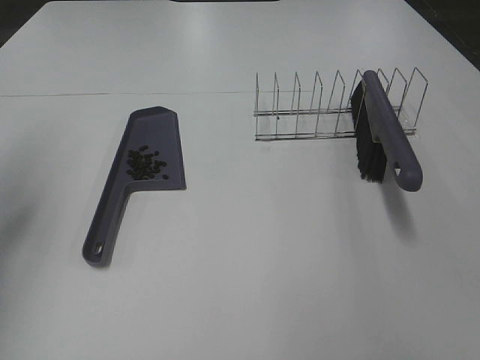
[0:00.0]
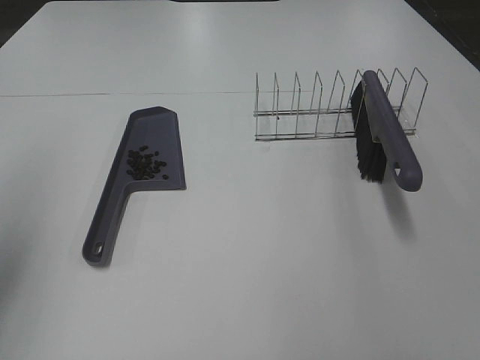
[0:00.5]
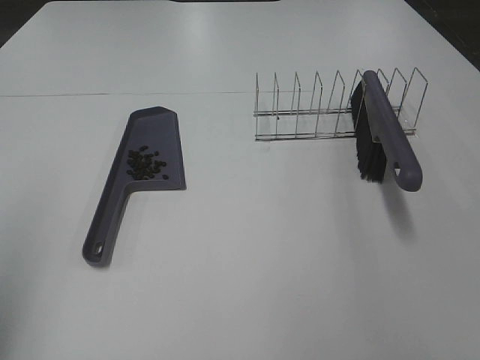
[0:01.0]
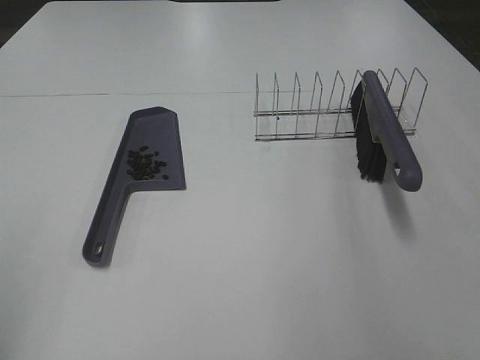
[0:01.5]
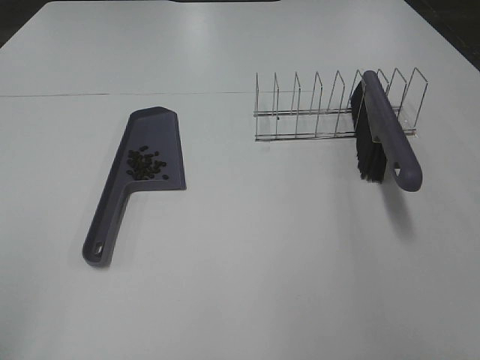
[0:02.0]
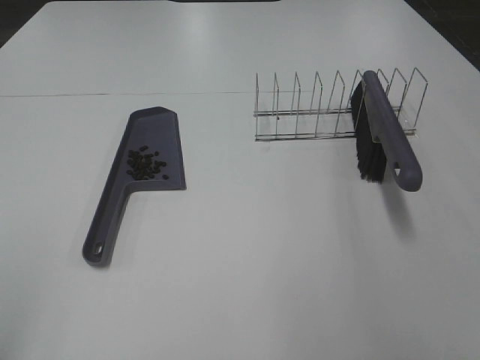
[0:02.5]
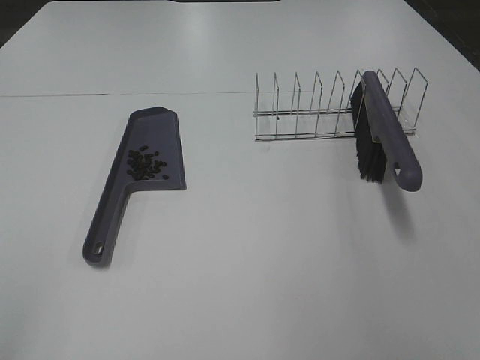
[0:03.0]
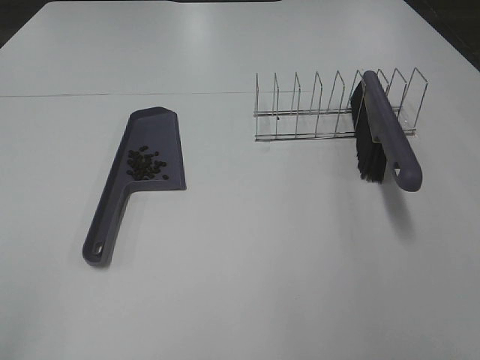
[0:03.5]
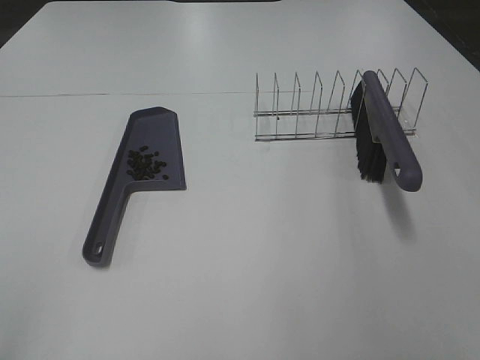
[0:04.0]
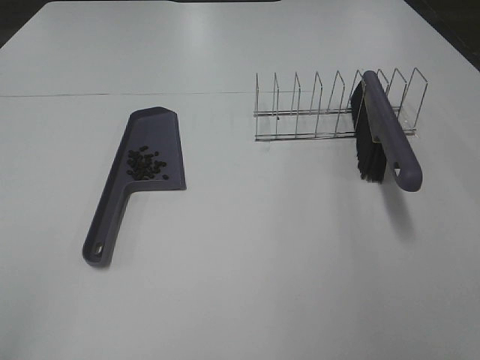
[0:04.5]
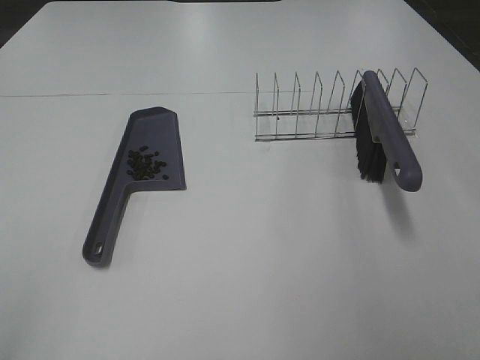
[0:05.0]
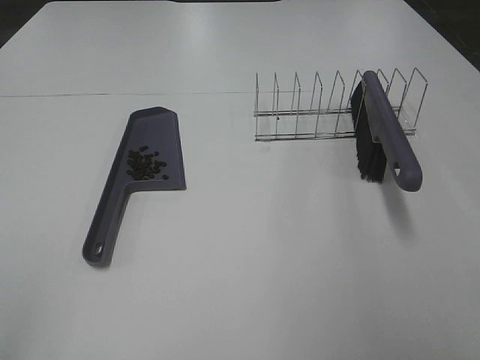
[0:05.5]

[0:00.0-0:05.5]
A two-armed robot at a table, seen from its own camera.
Task of the whole recording: Sweep Coffee Bean.
0:00.0 to 0:02.0: The left gripper goes approximately 30 cm backward.
0:03.5 to 0:05.5: Both grippers stay about where they are.

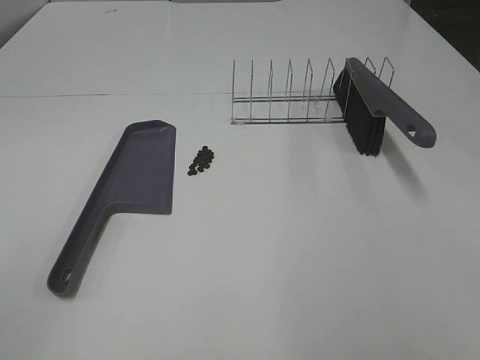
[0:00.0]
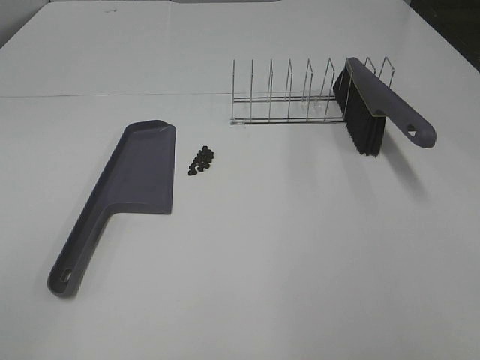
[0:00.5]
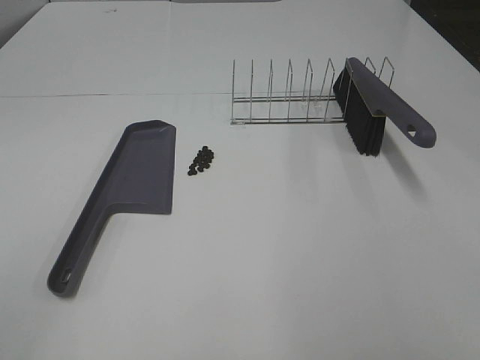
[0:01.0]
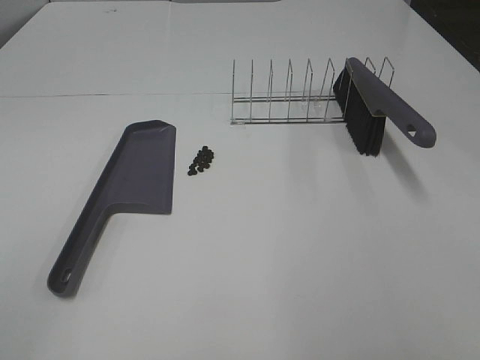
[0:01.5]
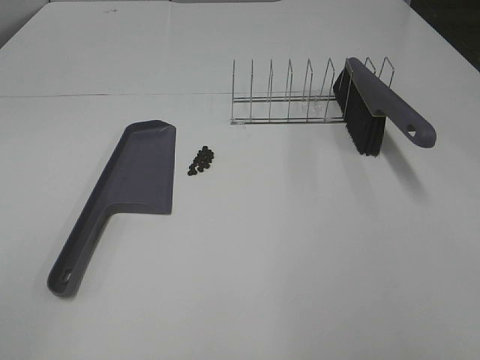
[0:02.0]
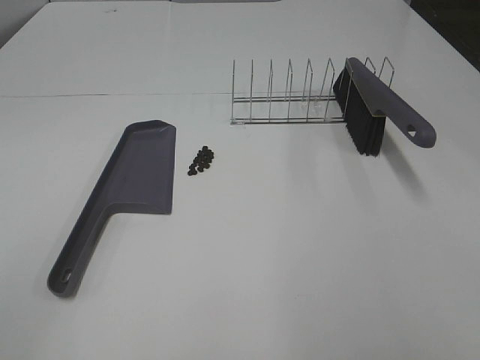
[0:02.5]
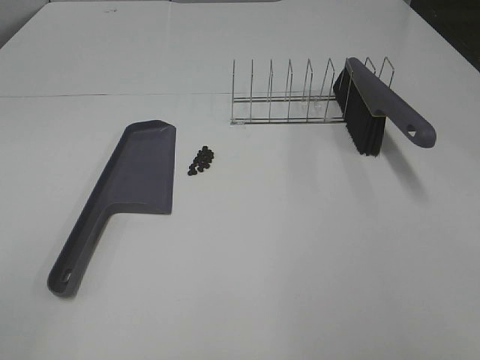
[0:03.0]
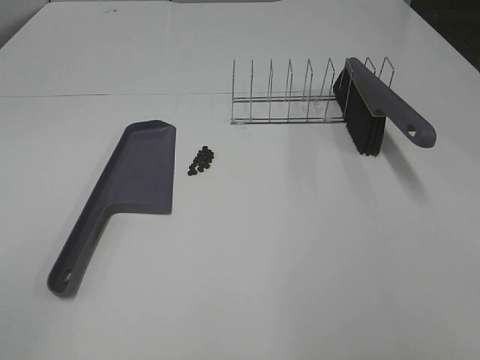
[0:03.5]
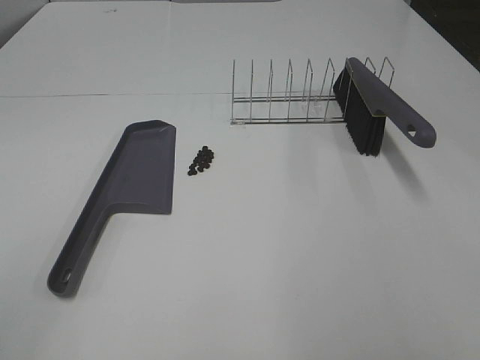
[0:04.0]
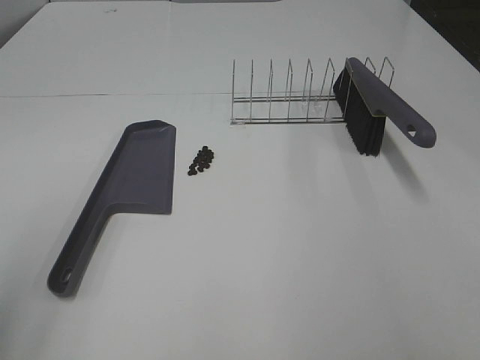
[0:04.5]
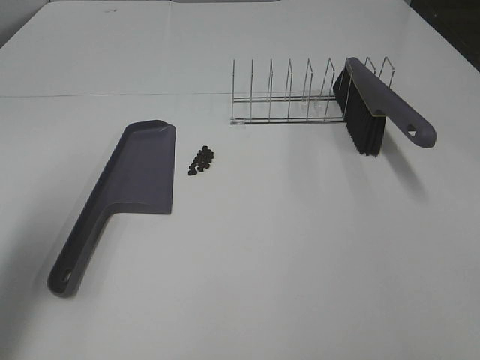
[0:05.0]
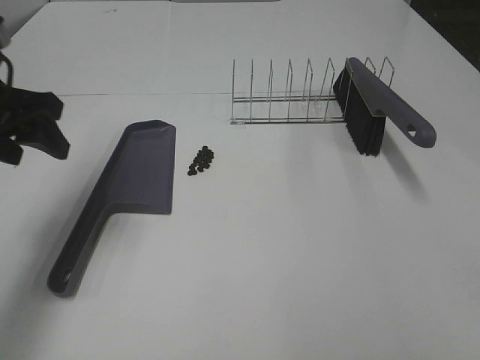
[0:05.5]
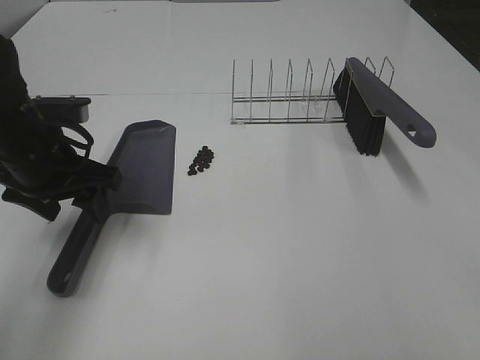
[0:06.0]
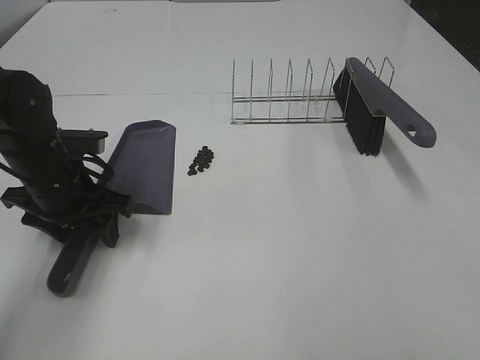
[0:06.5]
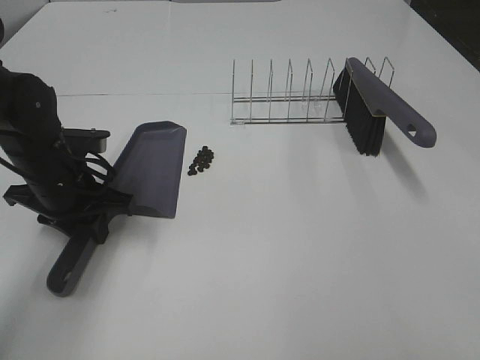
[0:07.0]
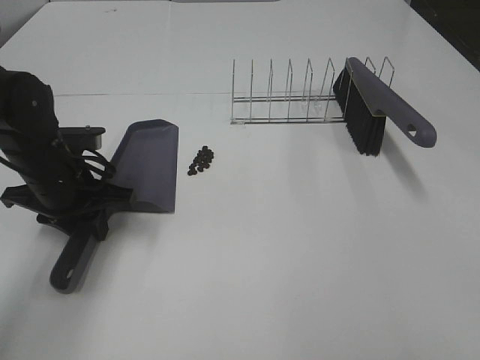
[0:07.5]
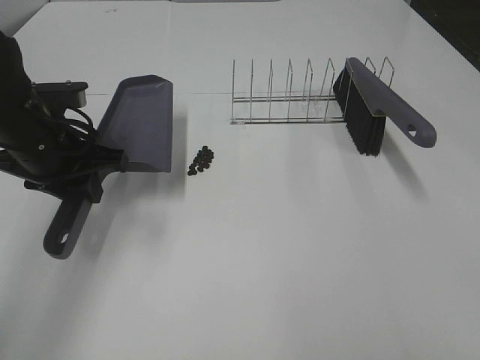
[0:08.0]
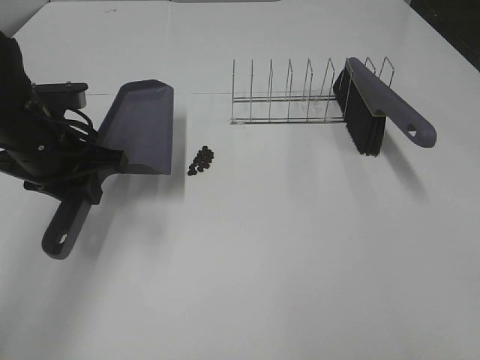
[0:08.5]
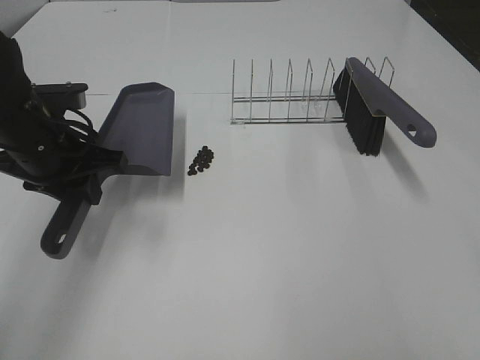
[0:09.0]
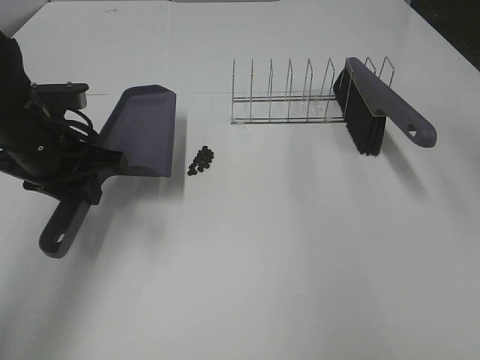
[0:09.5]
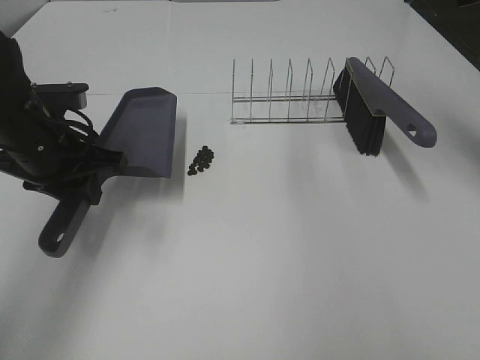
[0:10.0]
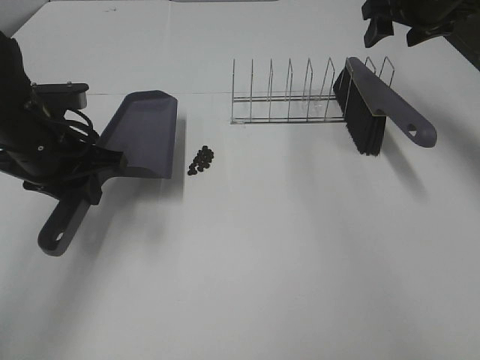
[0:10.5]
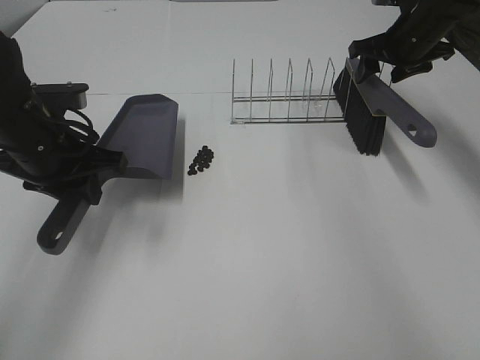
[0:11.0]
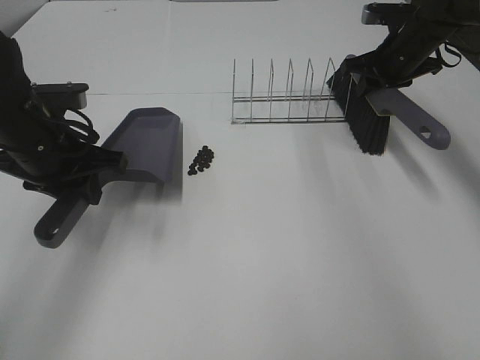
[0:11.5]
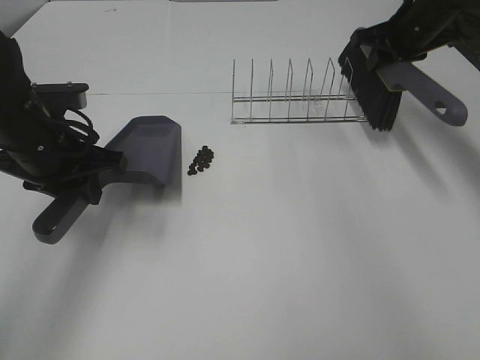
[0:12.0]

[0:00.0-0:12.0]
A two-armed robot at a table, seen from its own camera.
Task of the whole recording: Sweep Coffee Bean.
Step, 0:00.0 to 0:07.0: Left hand: grab the dustpan.
Step, 0:08.5 to 0:11.5: Right hand:grab the broom.
0:00.0 to 0:04.0: The two grippers keep their place.
0:04.0 to 0:06.0: The left gripper travels forward and downward by about 35 cm, and opens up.
0:06.0 to 0:08.0: The left gripper closes up.
0:08.0 to 0:10.0: The right gripper goes about 40 cm forward.
0:10.0 to 0:12.0: The right gripper is displaced forward and downward by about 15 cm, and closes up.

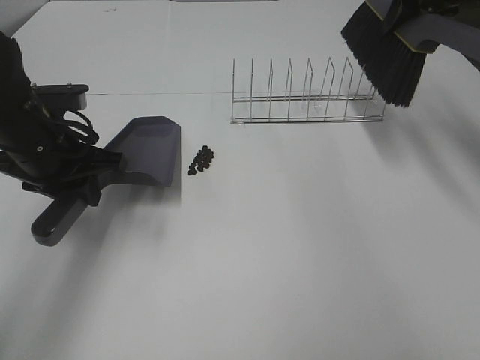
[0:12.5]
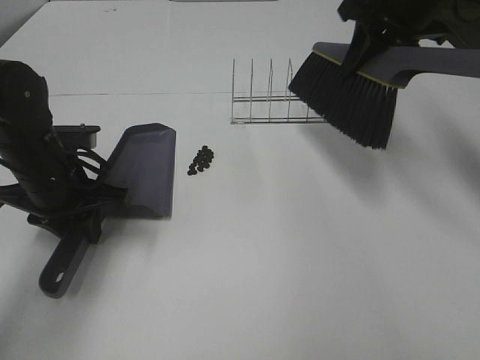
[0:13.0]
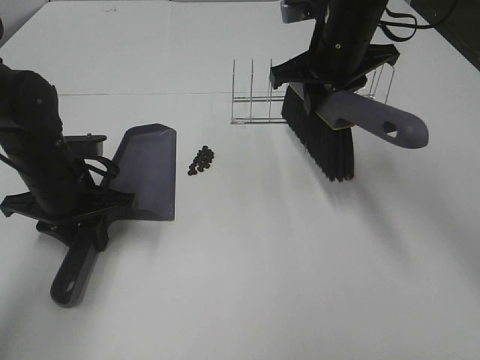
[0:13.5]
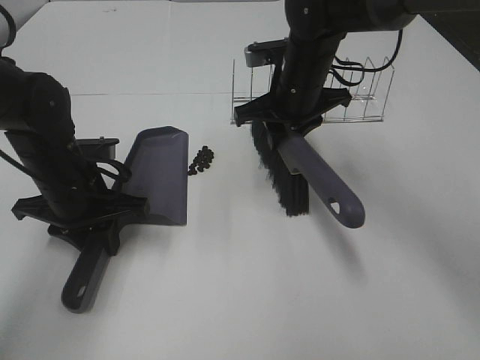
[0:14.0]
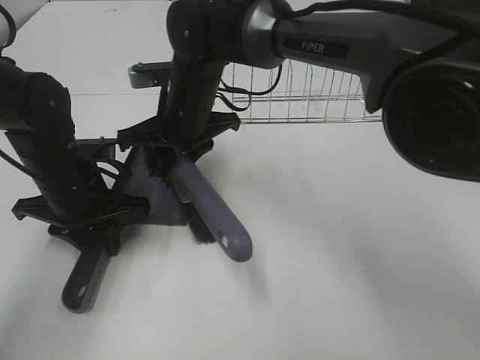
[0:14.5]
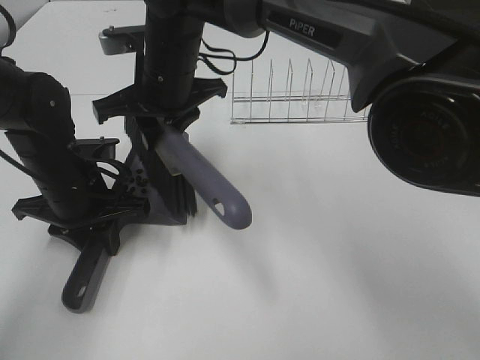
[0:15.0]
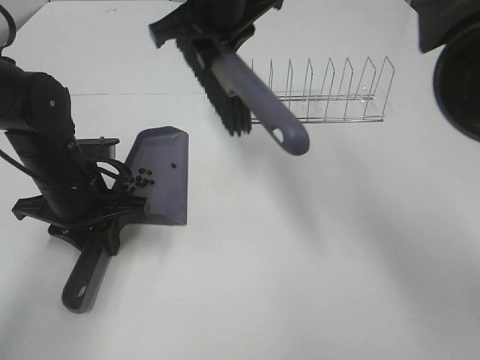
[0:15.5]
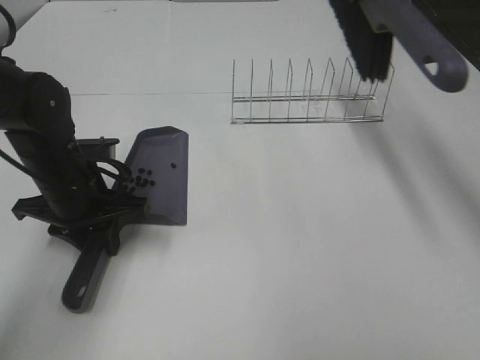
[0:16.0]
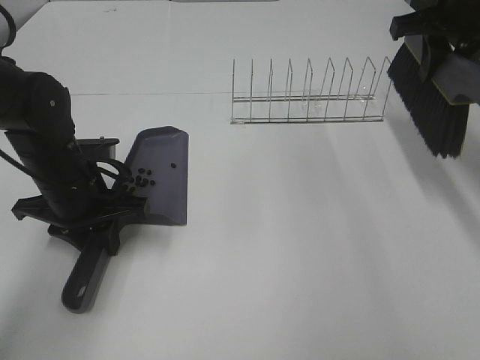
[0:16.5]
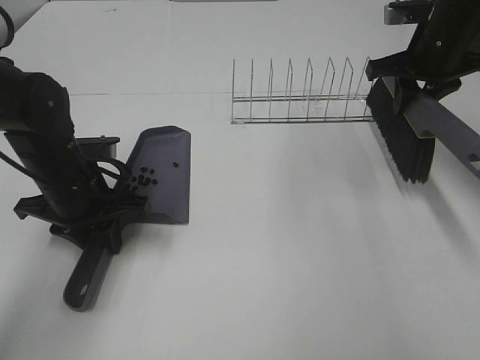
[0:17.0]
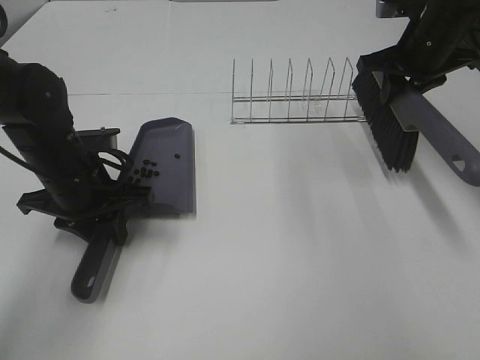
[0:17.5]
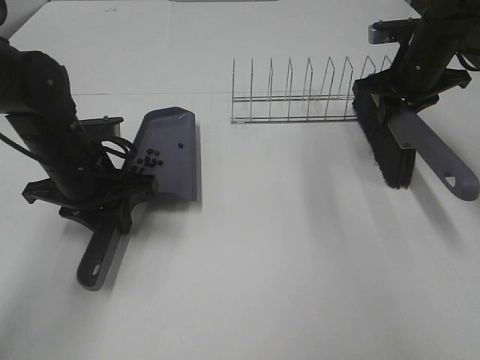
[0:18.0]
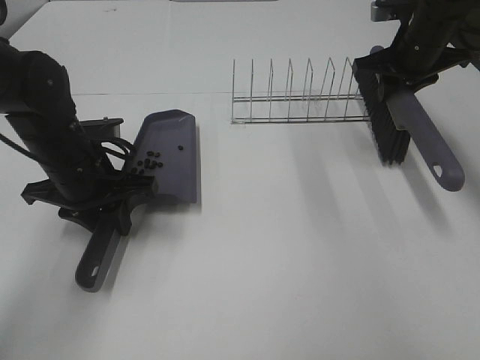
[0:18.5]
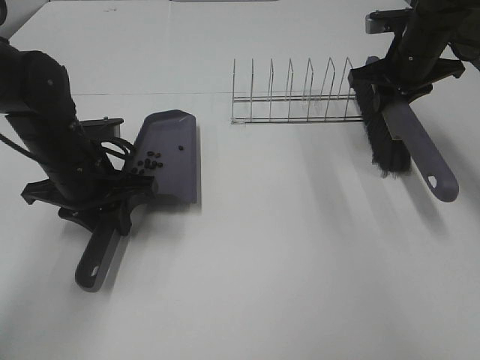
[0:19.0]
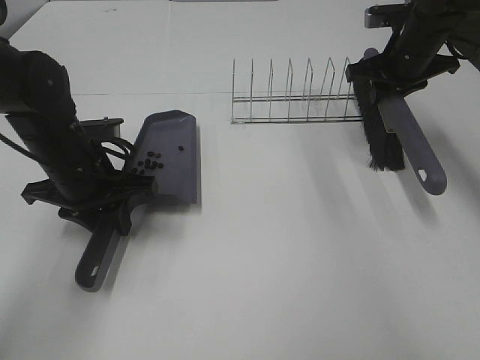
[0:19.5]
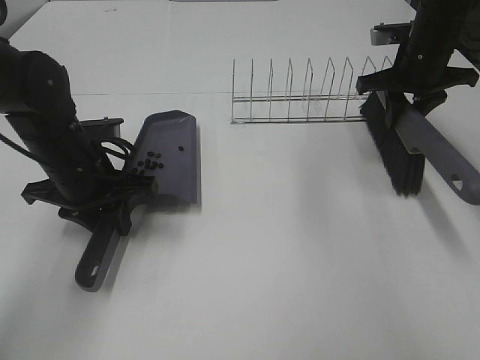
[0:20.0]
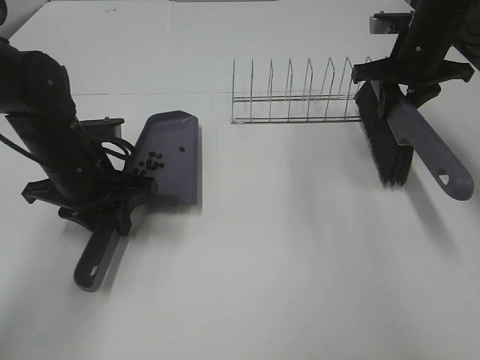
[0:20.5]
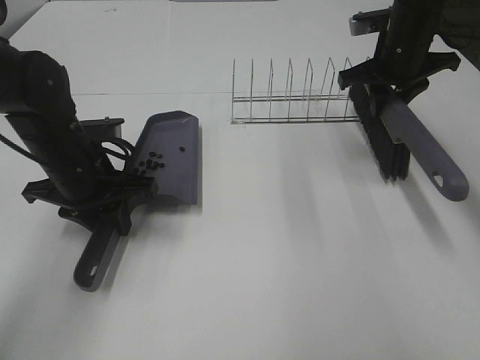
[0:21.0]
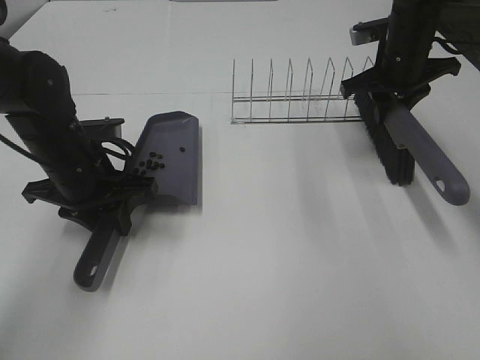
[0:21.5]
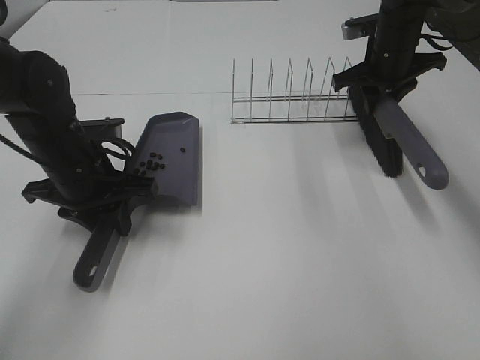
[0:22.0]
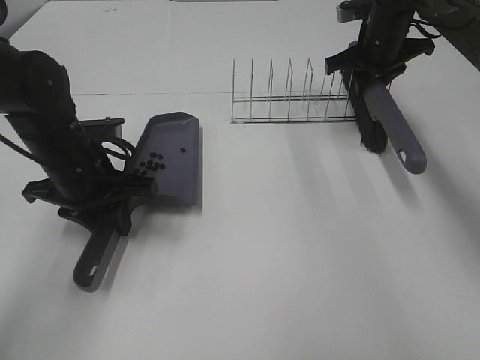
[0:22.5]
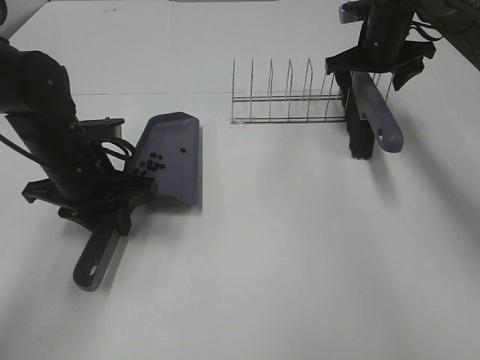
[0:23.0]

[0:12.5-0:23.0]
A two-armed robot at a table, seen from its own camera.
Task of the whole recording: Sweep Coffee Bean.
Step, 0:12.5 to 0:15.0: Right hand:sweep the coffee beans into the dustpan.
0:12.5 to 0:14.5: The right gripper is displaced to the left and downward by about 35 cm, while the left gripper shifts roughly 5 cm downward.
0:14.5 to 0:16.5: The right gripper goes about 30 cm to the right.
0:16.5 to 0:19.0: The right gripper travels downward and forward by some 10 cm.
0:19.0 to 0:21.0: The grippers move only a little.
0:21.0 to 0:23.0: The right gripper shifts roughly 5 cm forward, and opens up.
